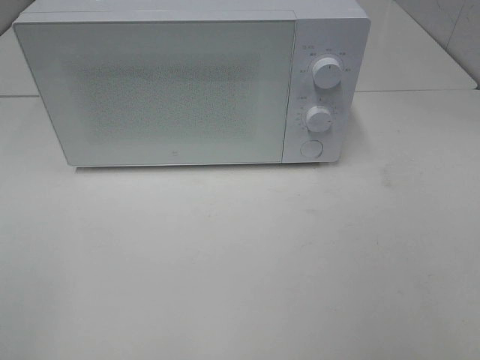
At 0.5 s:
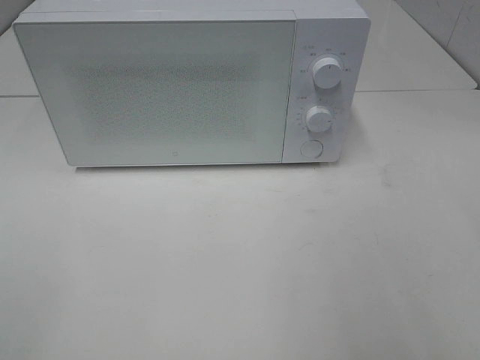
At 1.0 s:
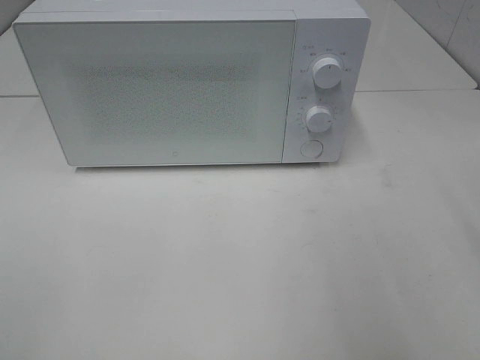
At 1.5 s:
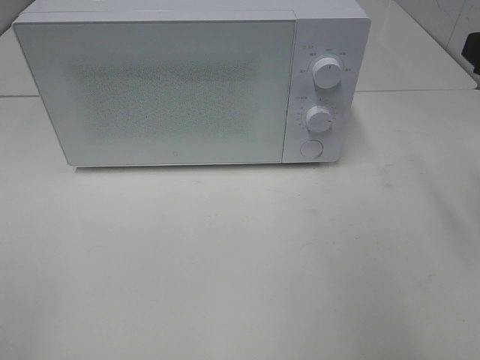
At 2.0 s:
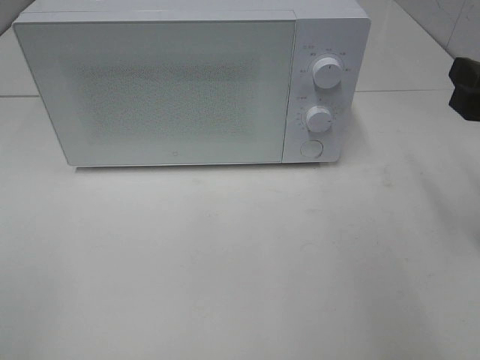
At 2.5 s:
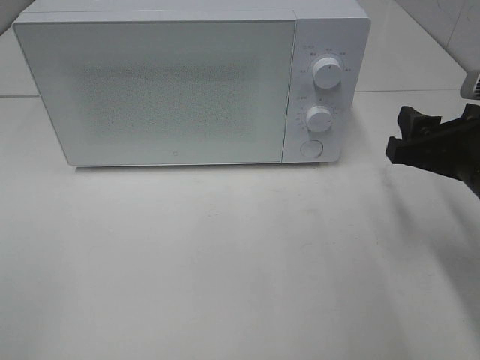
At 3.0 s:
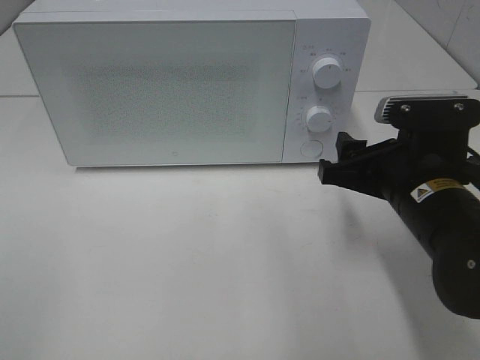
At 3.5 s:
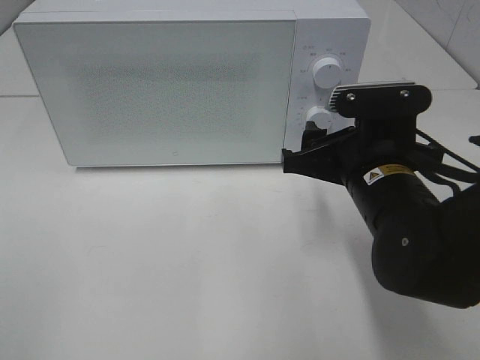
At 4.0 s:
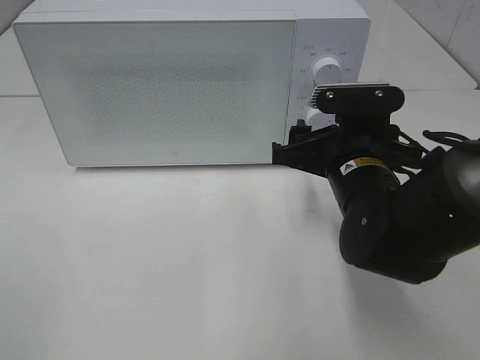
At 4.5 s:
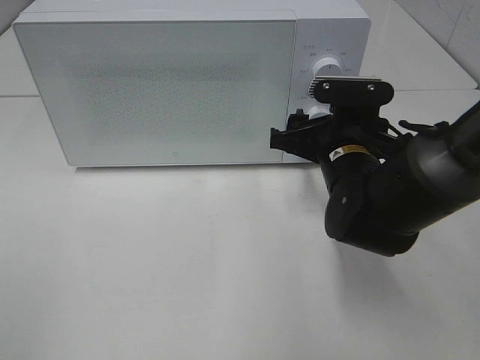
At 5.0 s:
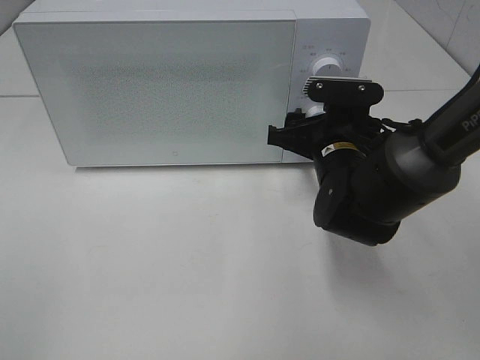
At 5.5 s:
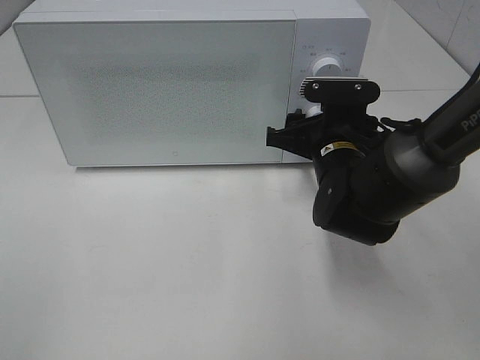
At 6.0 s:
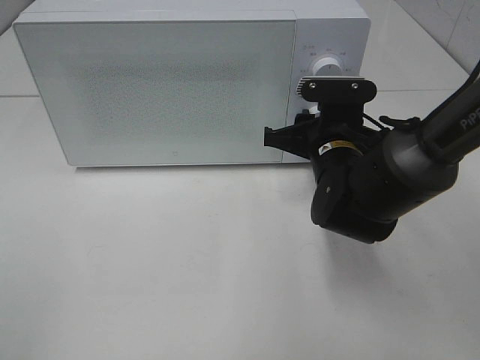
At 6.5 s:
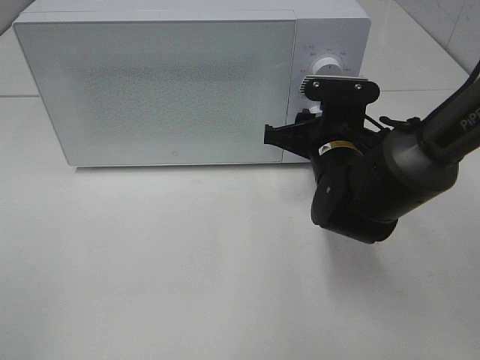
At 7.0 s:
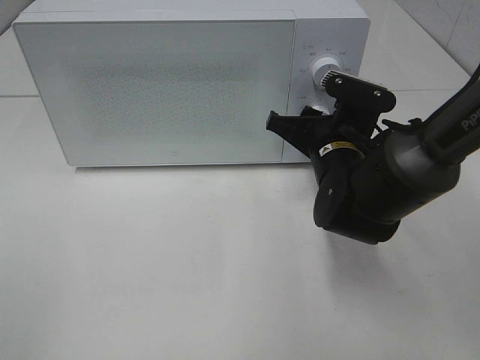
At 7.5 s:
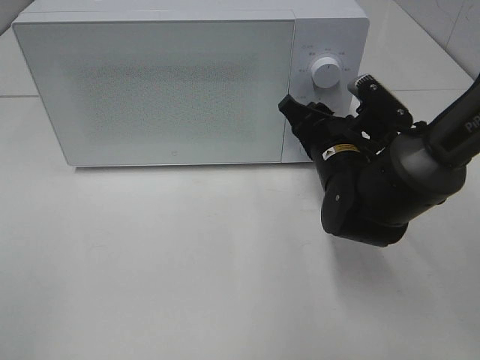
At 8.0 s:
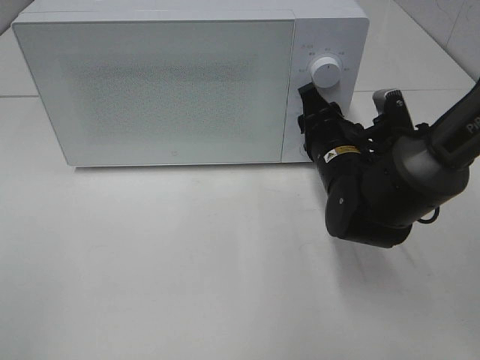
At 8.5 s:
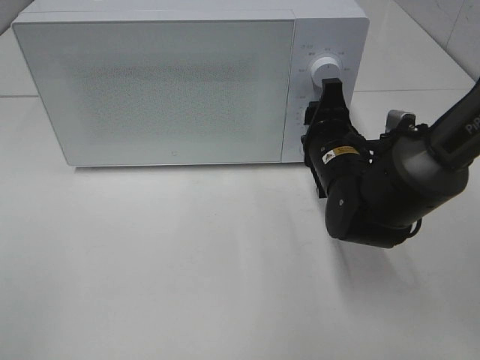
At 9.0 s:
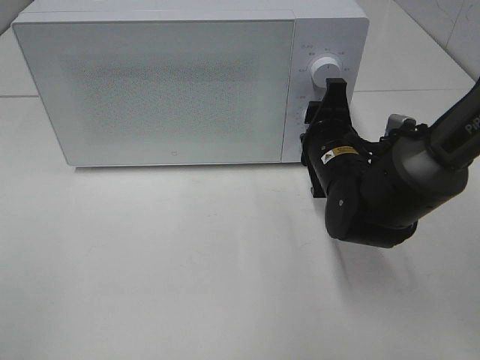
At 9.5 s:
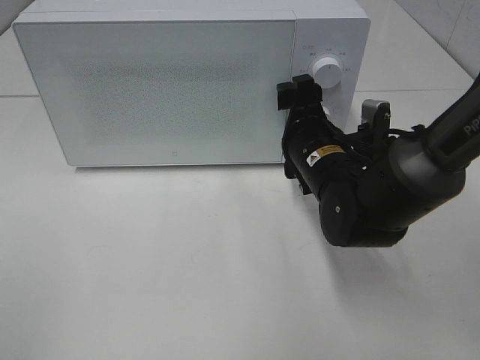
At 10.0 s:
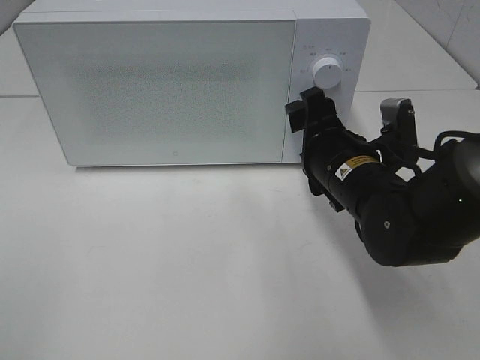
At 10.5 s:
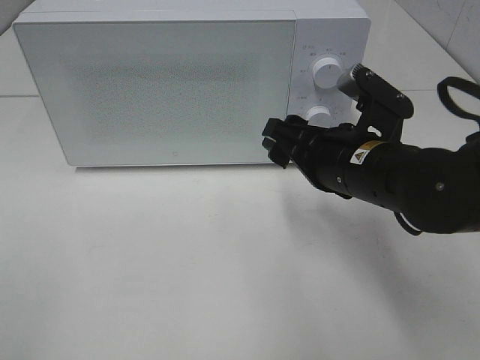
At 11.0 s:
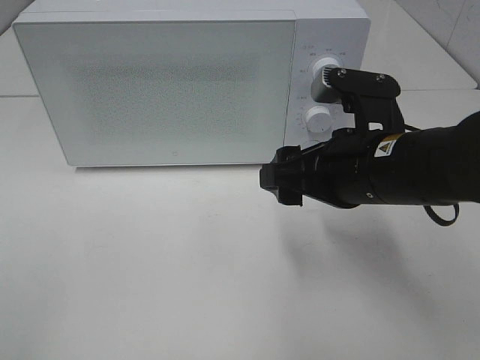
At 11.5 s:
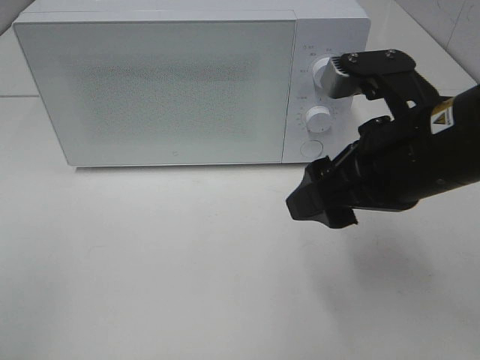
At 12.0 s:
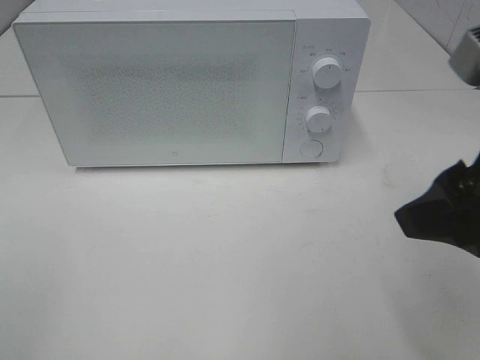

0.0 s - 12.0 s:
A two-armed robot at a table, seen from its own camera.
Task of the whole recording: Heat the burger.
Step, 0.0 s - 9.0 s: Right hand: twist timer button.
0.0 s - 2.0 s: The right gripper is displaced forward by roughly 20 cm.
2.0 s - 4.0 s: The right gripper is displaced to the left and downward by roughly 15 cm.
4.0 s - 6.0 s: The right gripper moves forward, some 5 cm, and closes.
8.0 s - 10.0 s: The right gripper opens its fingers.
10.0 s - 12.0 s: The right gripper moves upward, backward and to the right, approximately 20 cm.

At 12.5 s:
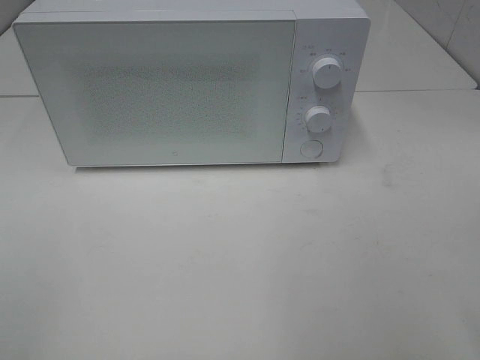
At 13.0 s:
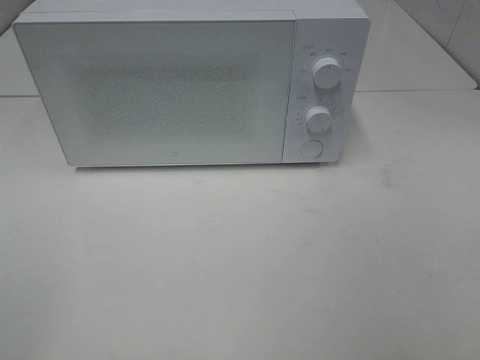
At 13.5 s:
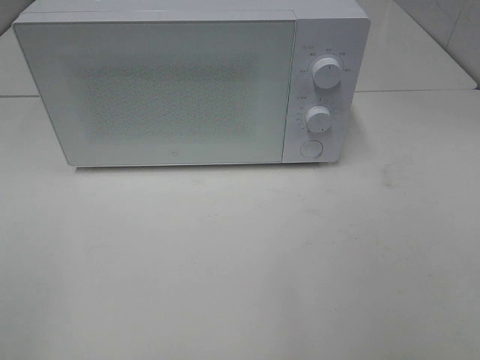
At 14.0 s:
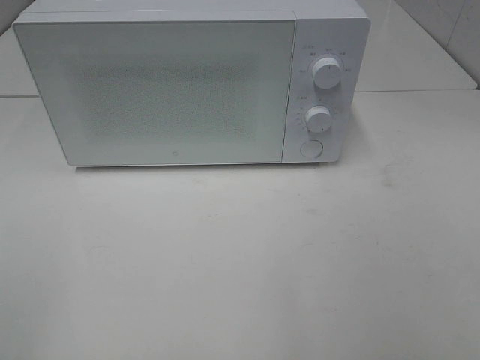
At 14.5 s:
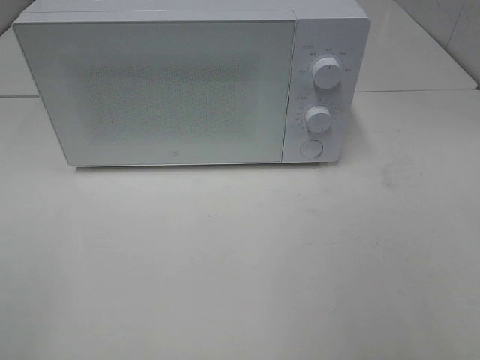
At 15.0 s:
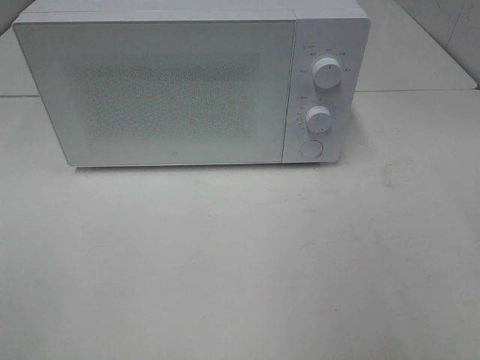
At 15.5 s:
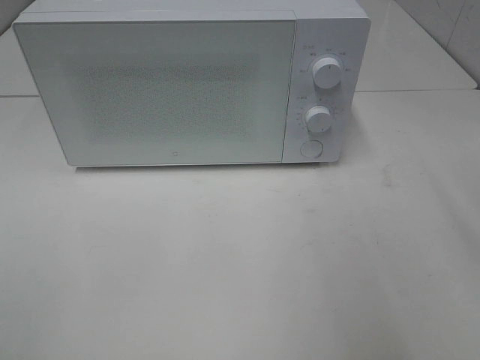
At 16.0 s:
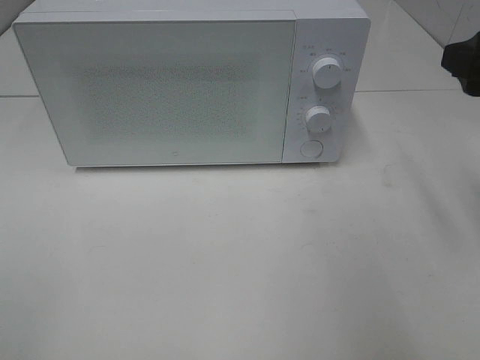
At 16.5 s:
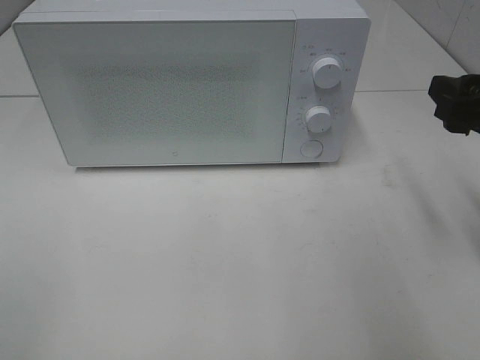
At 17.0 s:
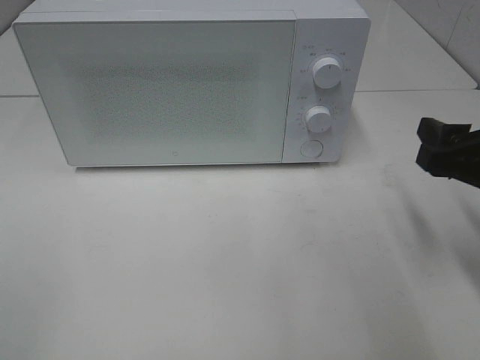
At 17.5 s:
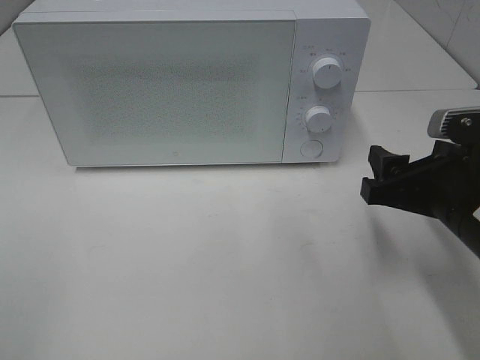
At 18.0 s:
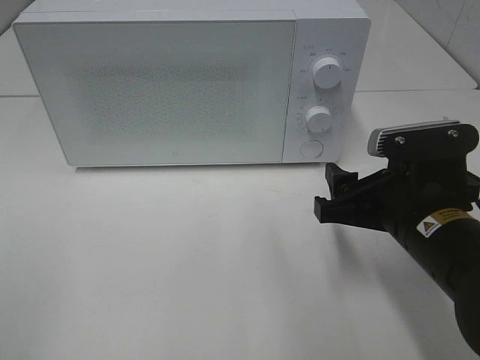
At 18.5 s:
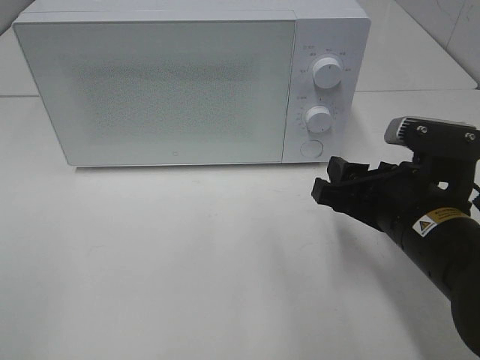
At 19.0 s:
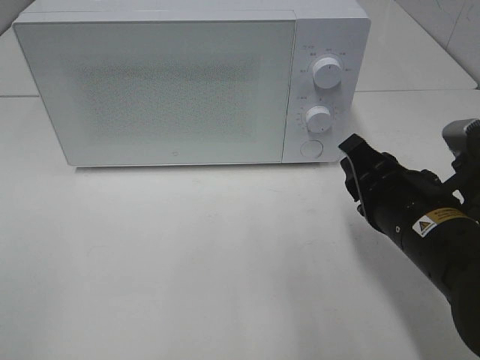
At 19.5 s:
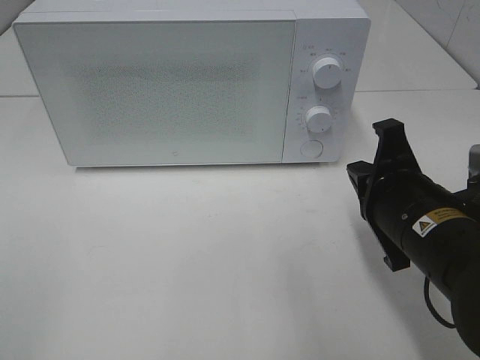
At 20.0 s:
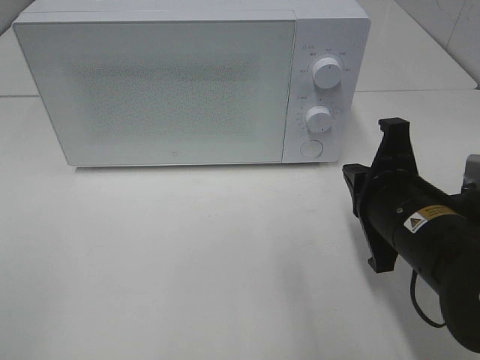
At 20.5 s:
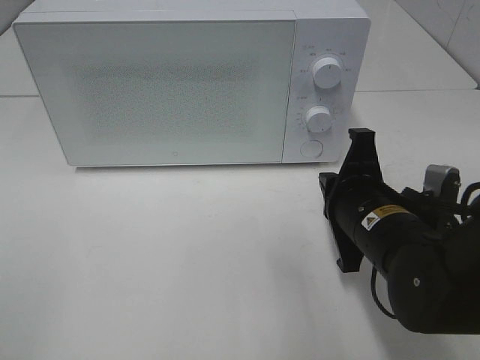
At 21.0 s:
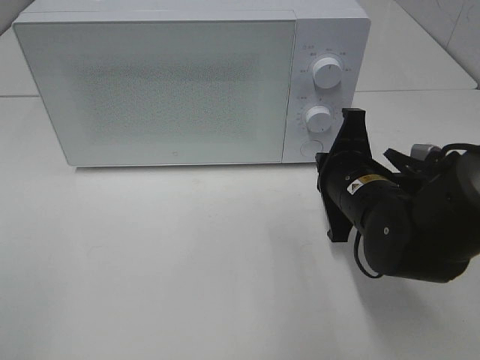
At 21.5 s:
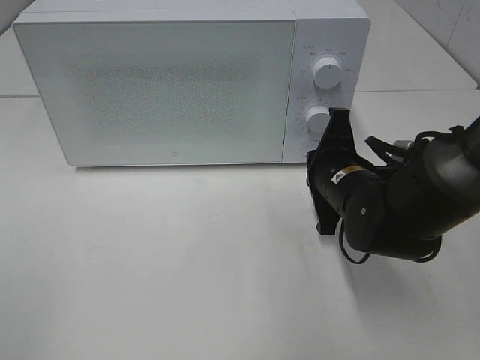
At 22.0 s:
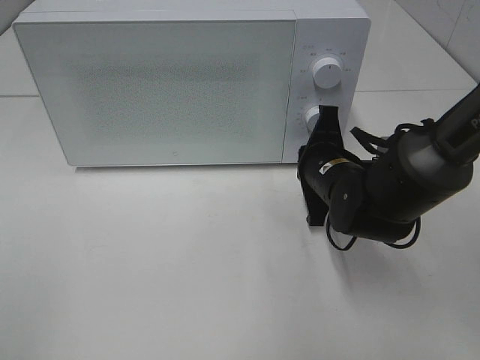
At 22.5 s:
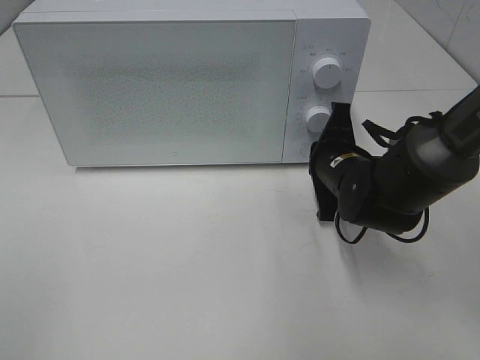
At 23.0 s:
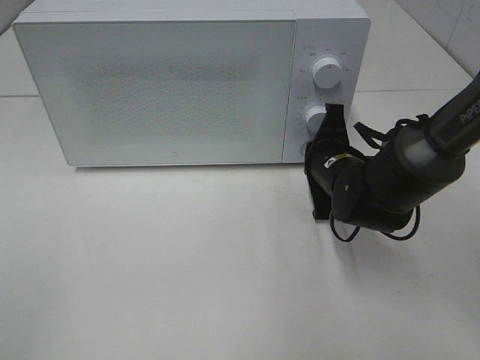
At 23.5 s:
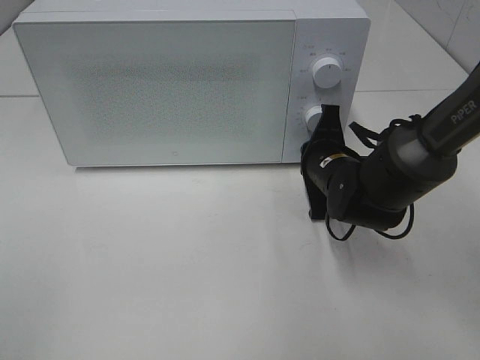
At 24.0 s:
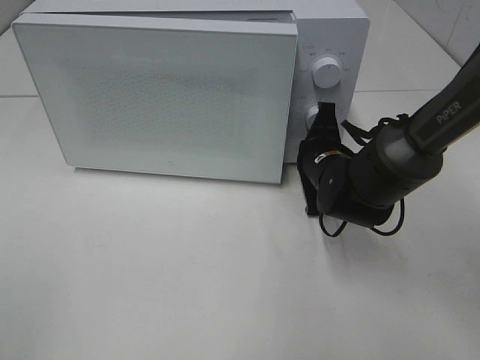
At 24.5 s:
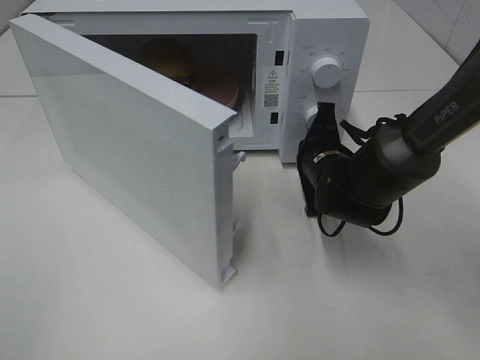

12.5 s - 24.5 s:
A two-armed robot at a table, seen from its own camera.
Task of the whole recording: Heat the burger.
14.5 s - 16.5 s: The right gripper is displaced forward and downward by approximately 20 cm.
16.5 s - 18.5 s: The right gripper goes some 15 cm to the left and downward.
18.5 s - 20.5 s: The right gripper closes its fingers.
20.5 s - 22.5 s: The right gripper is displaced forward by about 10 cm.

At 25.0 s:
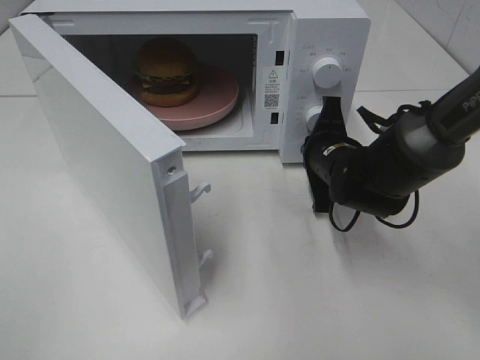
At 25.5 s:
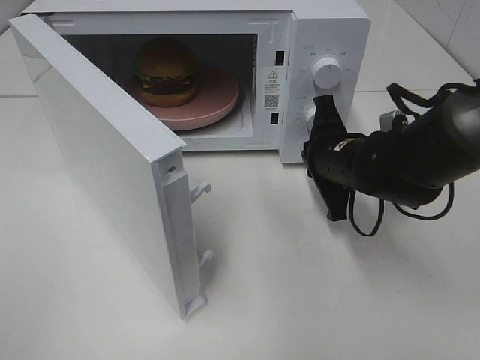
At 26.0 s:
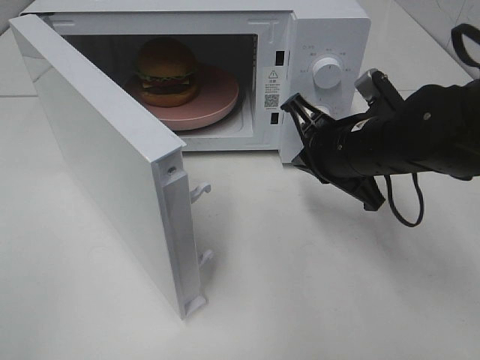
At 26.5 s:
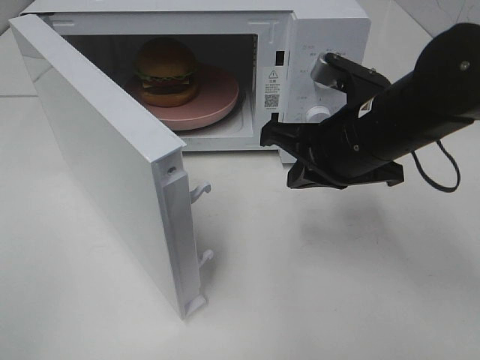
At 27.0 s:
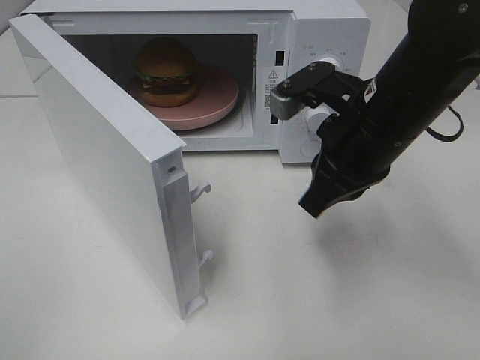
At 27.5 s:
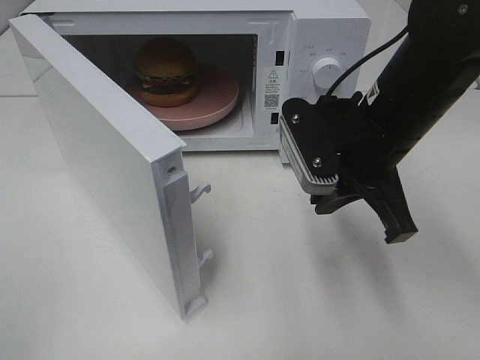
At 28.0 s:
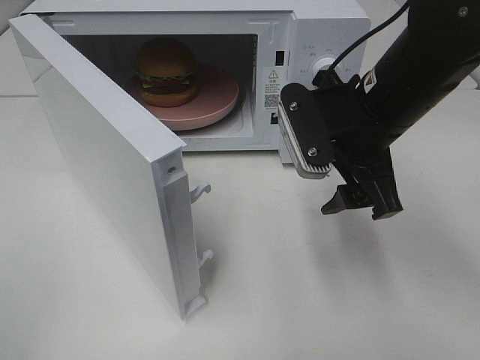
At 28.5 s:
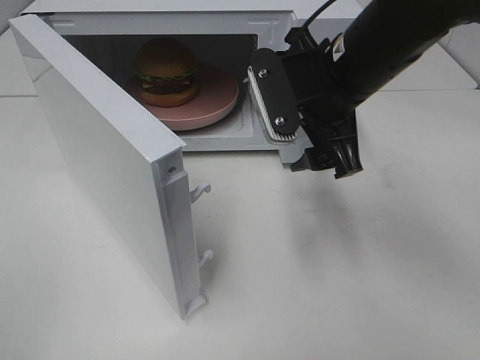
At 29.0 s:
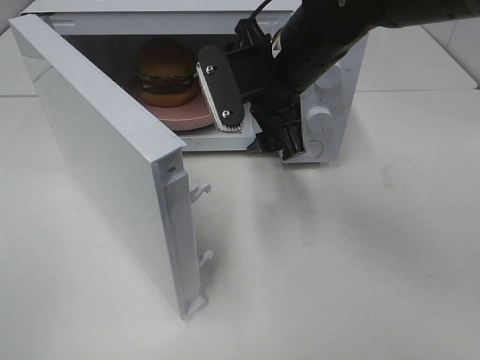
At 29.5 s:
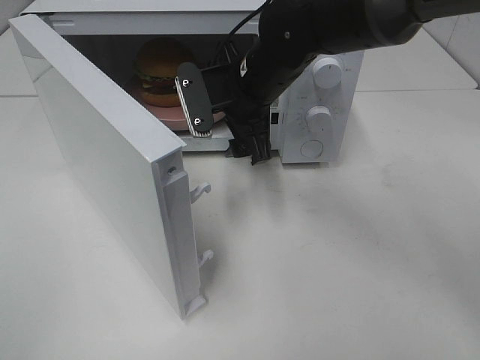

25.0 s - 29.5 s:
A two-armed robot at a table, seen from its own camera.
Task of the whole recording: Heat the burger.
25.0 s - 27.0 s: The right gripper moves upward and backward, approximately 15 cm.
27.0 s - 29.5 s: The right gripper heads forward and to the left, covering approximately 15 cm, and opens up.
